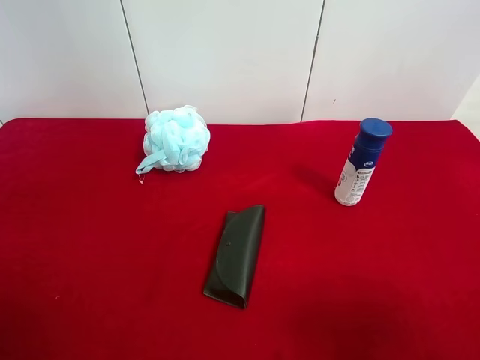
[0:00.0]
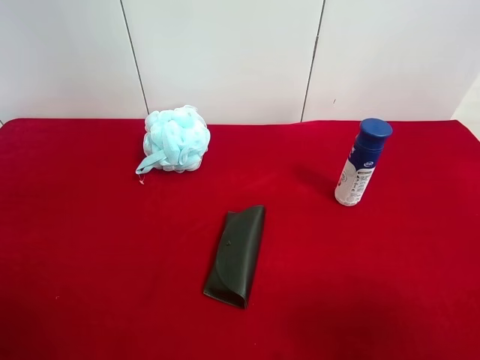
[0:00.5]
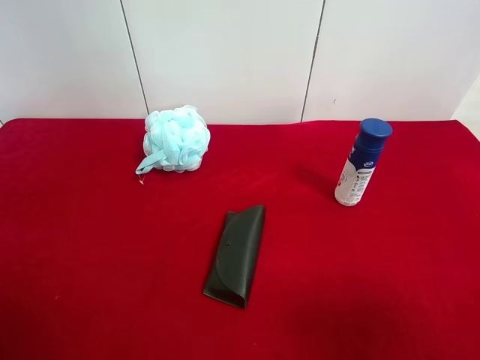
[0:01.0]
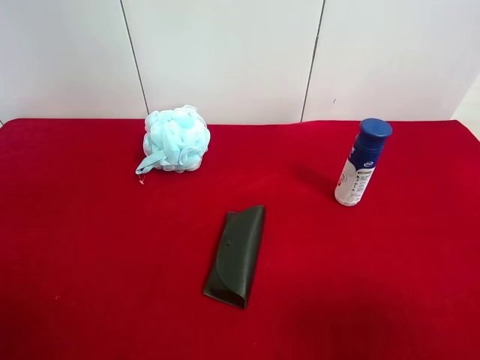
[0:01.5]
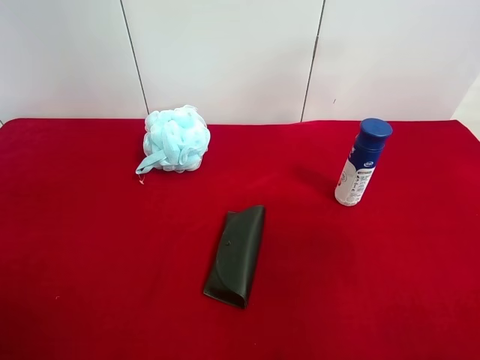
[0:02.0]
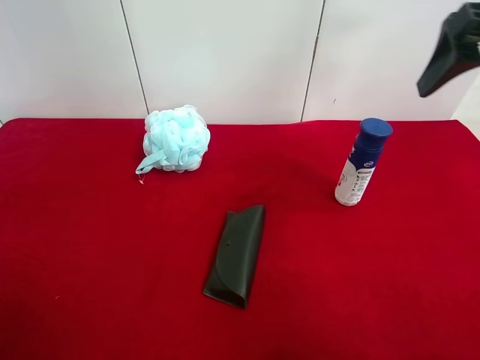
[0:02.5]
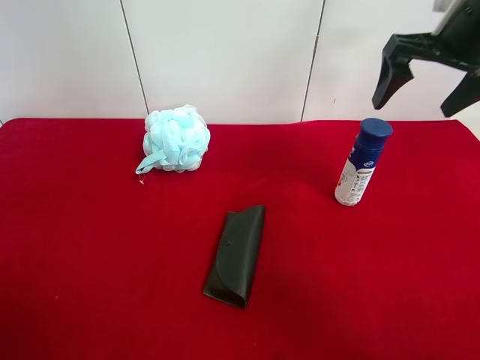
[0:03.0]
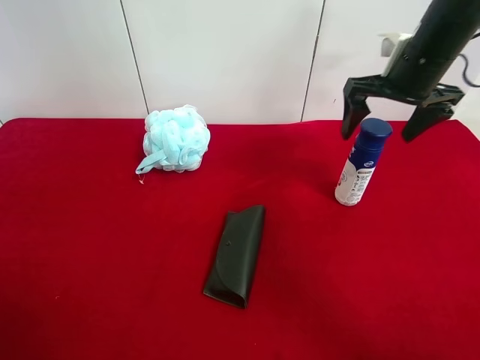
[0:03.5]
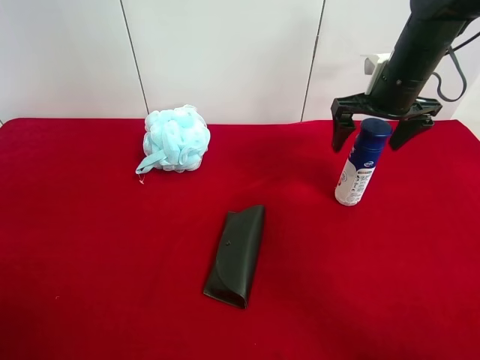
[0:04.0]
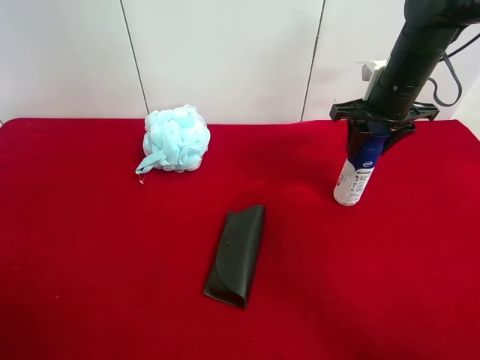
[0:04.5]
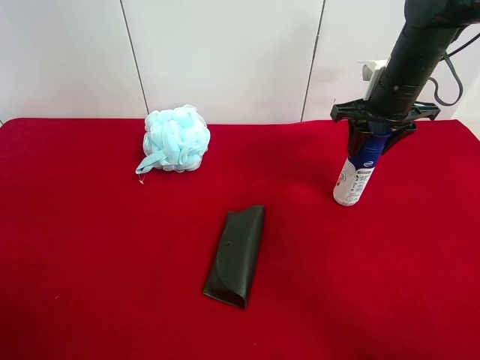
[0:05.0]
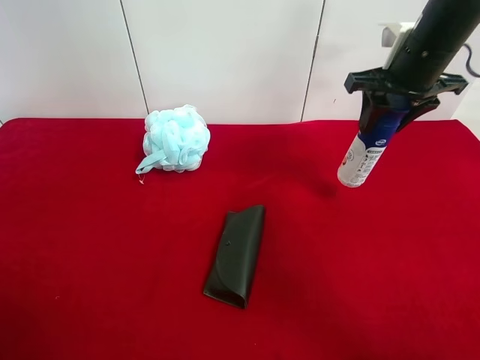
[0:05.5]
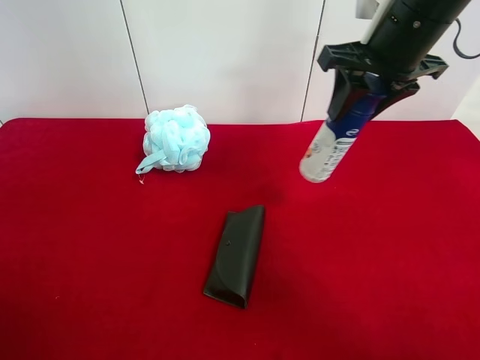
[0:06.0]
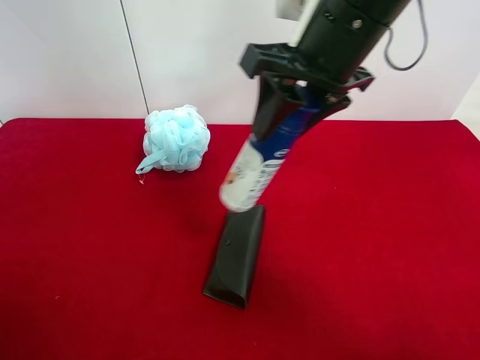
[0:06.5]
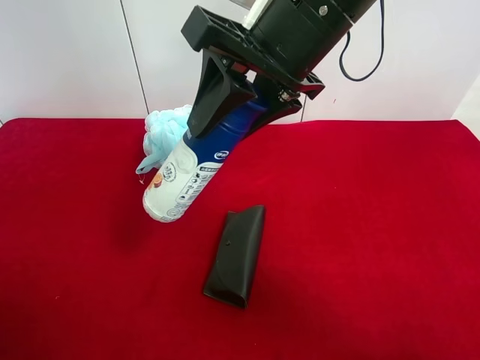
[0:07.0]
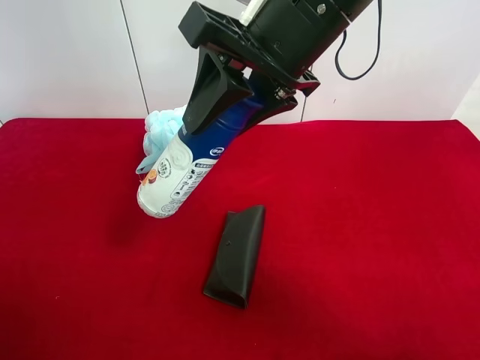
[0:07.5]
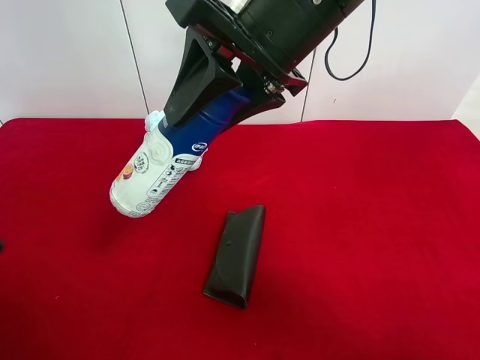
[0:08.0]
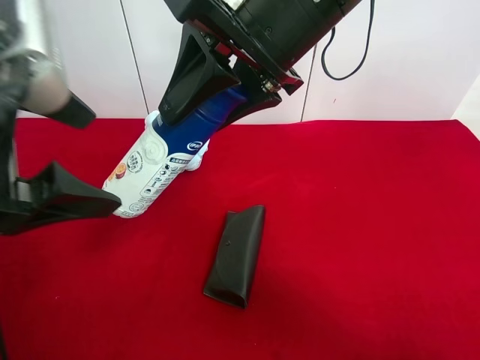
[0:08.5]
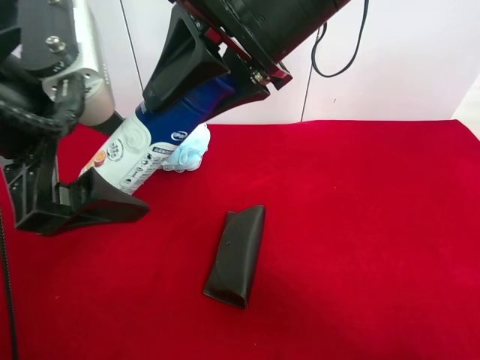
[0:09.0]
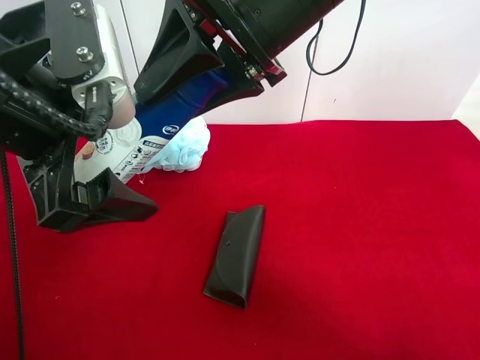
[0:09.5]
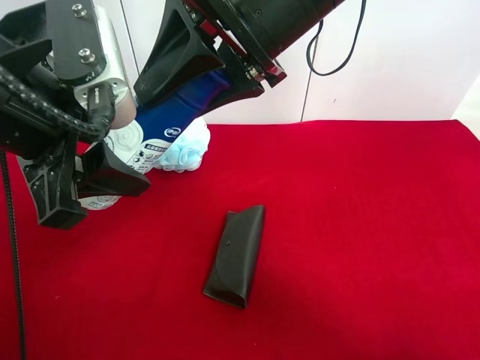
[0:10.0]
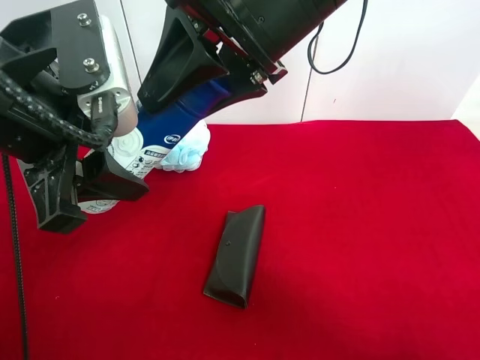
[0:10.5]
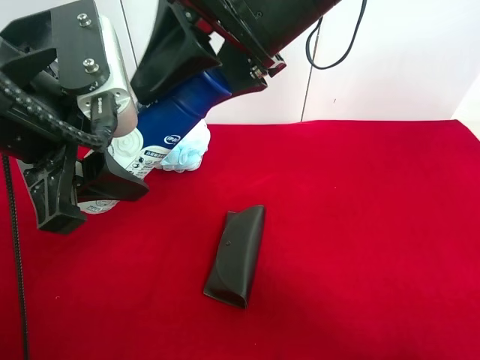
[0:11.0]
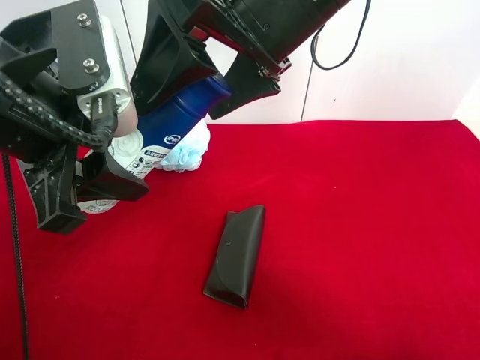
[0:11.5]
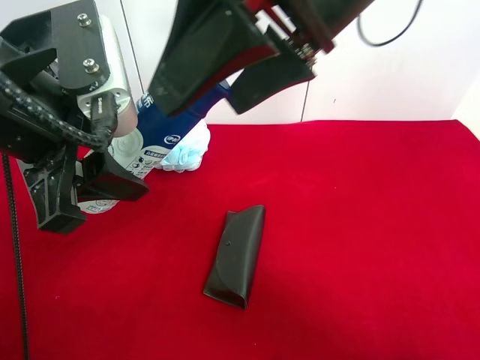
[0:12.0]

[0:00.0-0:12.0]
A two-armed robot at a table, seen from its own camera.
Task of the whole recording: use the right gripper to pick up the item and transfer it from the right gripper to the left gripper.
Step, 0:00.0 to 0:04.5: Use the right gripper to grab the yogurt on the right side of the table.
0:02.0 to 0:04.0: The right gripper goes some 30 cm forward and downward.
0:04.0 to 0:06.0: The right gripper travels upward, backward and to the left by approximately 15 cm, and closes up.
0:06.0 to 0:08.0: The right gripper is displaced to the left and backward by roughly 15 cm. The left gripper moves forward, to the right and upward, about 15 cm.
0:08.0 to 0:10.0: The left gripper moves to the right and forward, roughly 10 cm, and closes up.
0:10.0 to 0:12.0: The right gripper changes place by about 5 cm, and opens up.

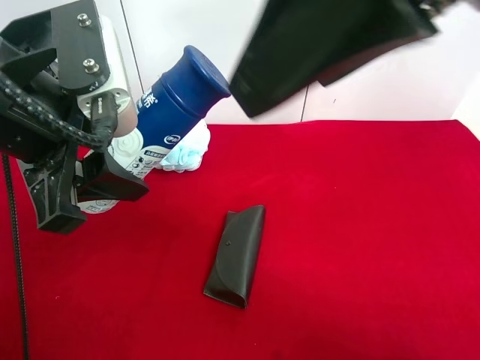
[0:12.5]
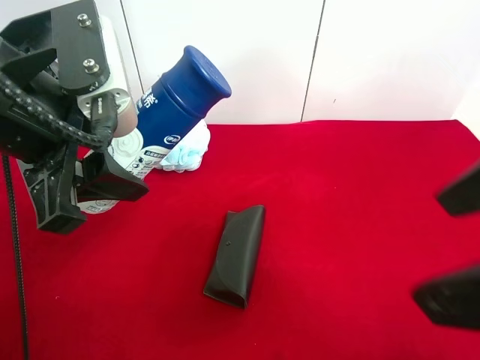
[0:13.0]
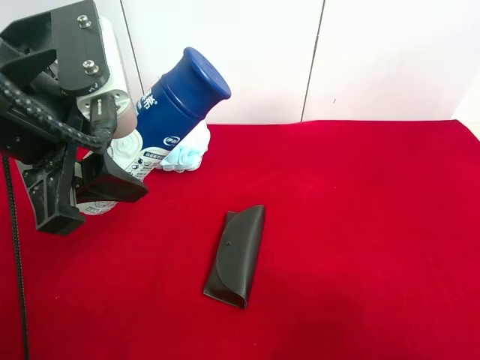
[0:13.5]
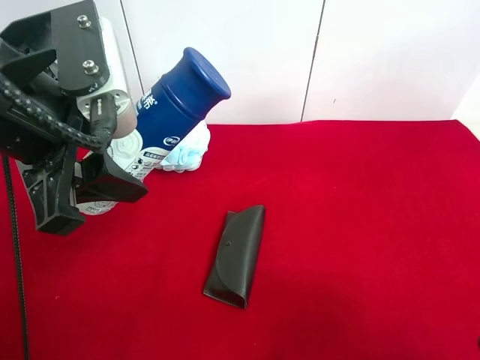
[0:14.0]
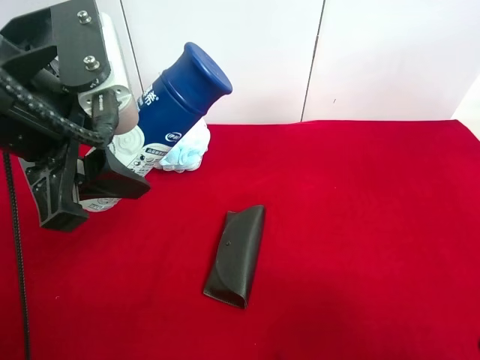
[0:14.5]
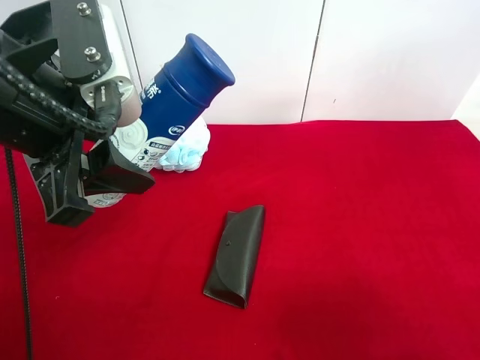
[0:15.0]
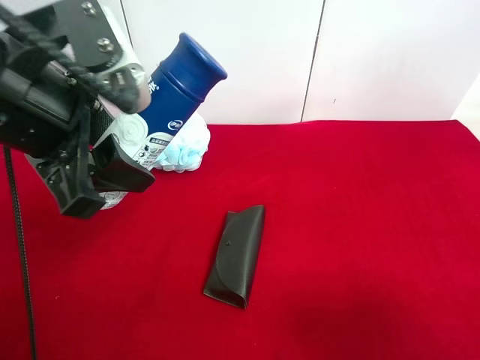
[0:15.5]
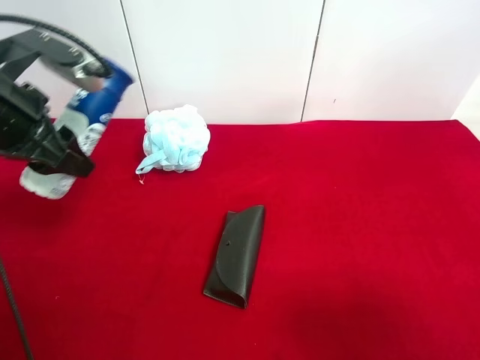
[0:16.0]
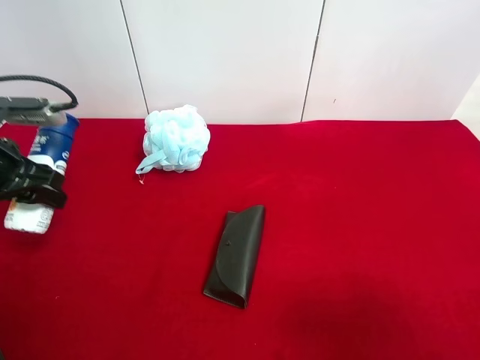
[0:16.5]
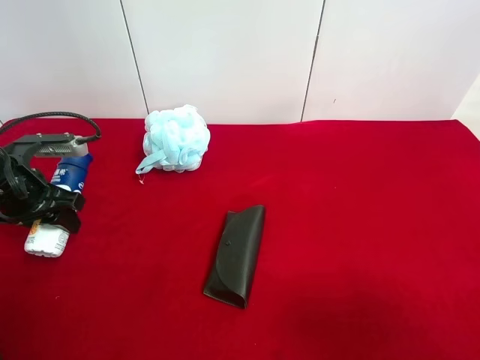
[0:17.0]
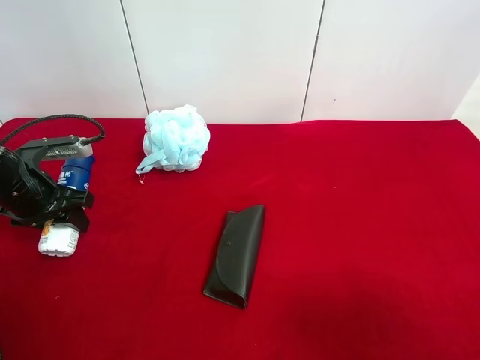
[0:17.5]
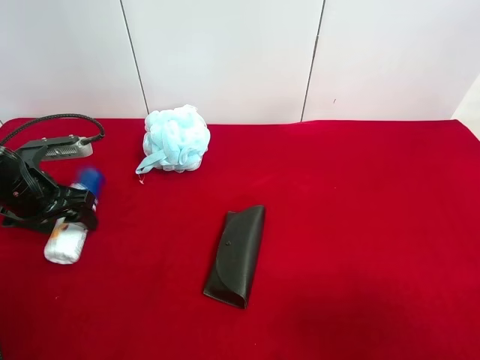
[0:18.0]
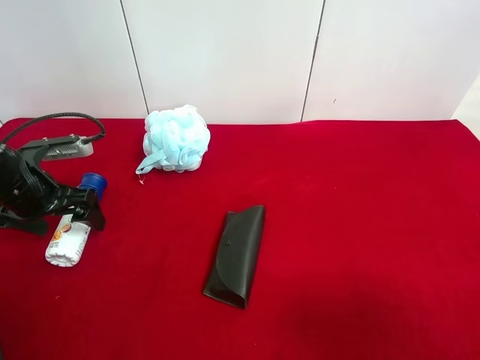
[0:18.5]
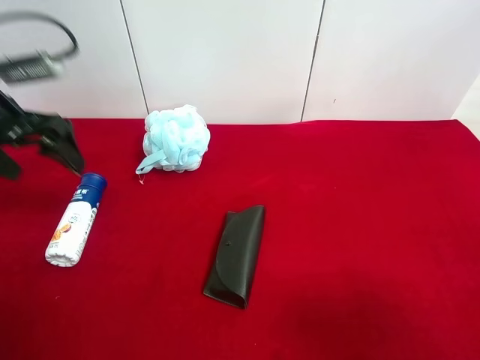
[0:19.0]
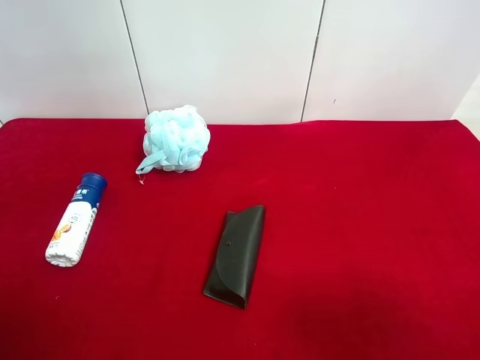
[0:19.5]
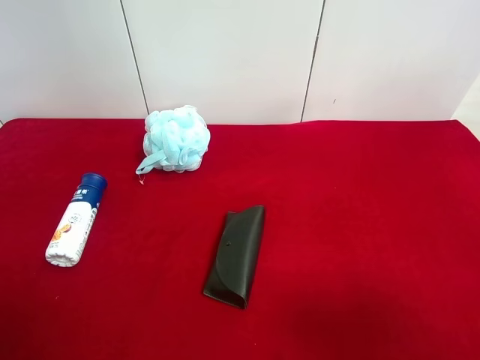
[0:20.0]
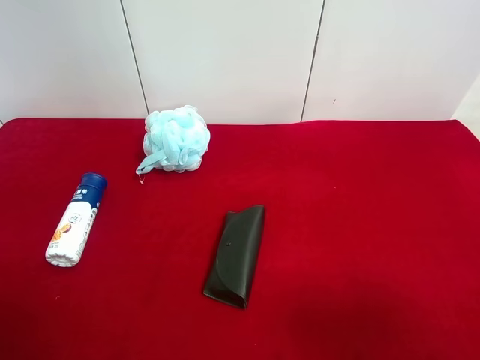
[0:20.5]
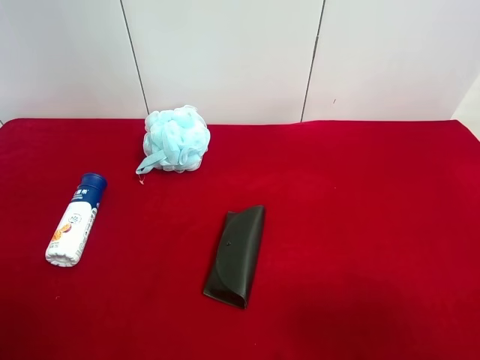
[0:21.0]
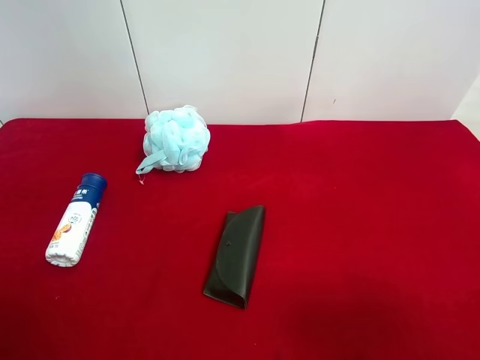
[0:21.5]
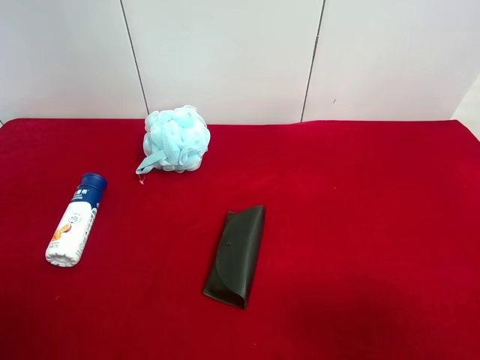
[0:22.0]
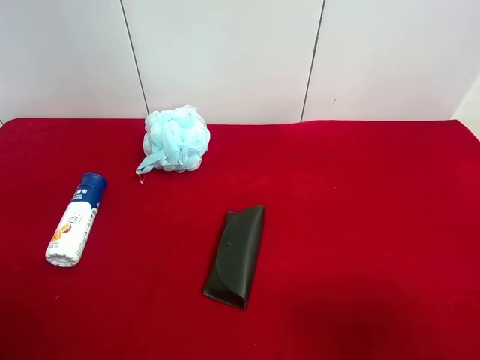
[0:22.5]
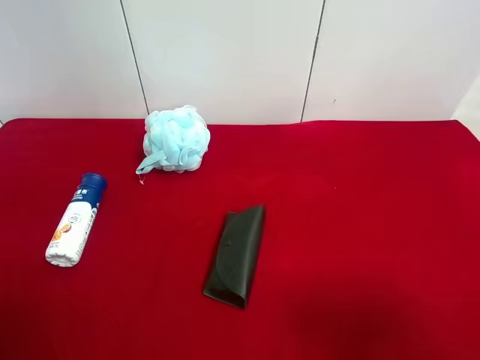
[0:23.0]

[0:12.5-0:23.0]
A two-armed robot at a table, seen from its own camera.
Task of the whole recording: use the right gripper to pick up the item and transfer it from the right gripper to the left gripper.
Step, 0:12.5 to 0:19.0: The left gripper places yogurt on the left side of the table.
0:12.5 to 0:14.5: The right gripper moves to the right, downward and backward, roughly 25 cm.
0:14.5 to 0:16.5: The left gripper goes roughly 20 cm to the left, downward and forward.
0:16.5 to 0:19.0: The left gripper is displaced upward by roughly 5 cm, and opens its fingers.
0:19.0 to 0:21.0: The left gripper travels backward by roughly 30 cm.

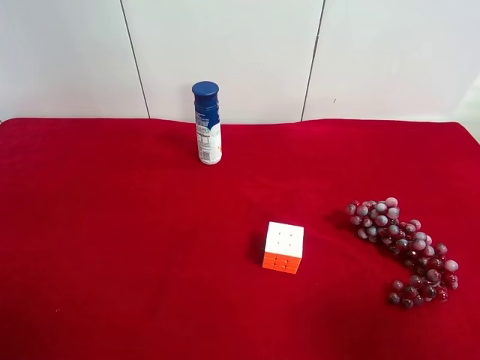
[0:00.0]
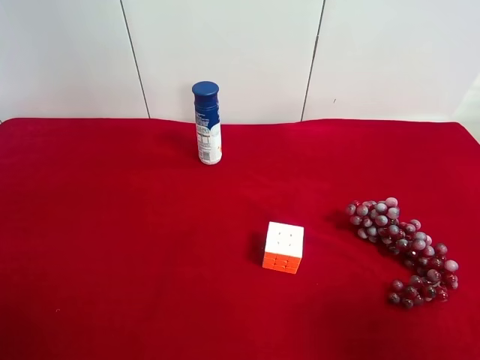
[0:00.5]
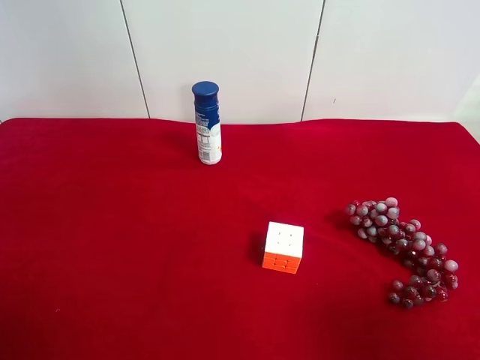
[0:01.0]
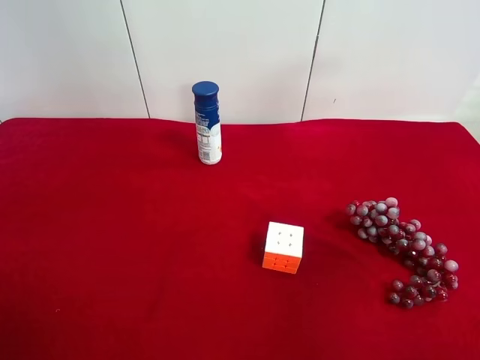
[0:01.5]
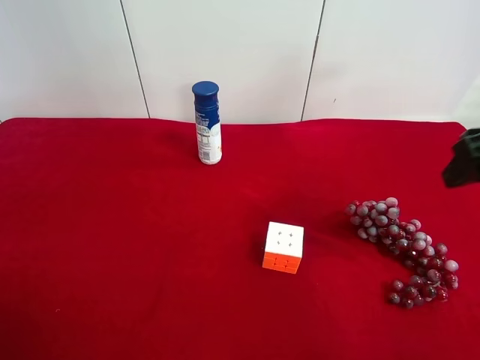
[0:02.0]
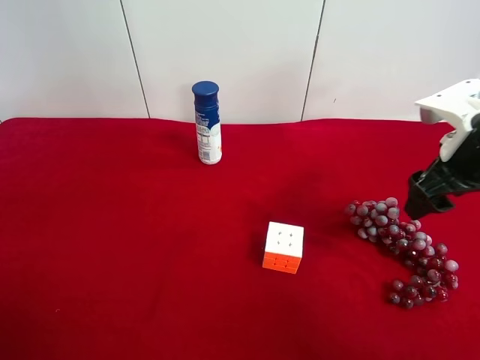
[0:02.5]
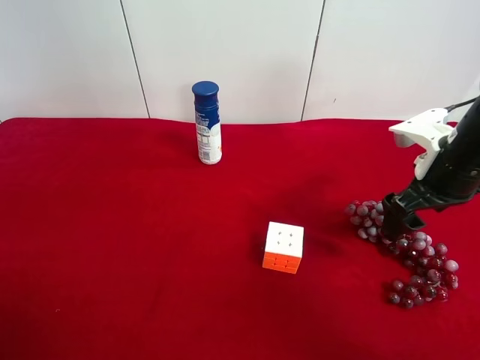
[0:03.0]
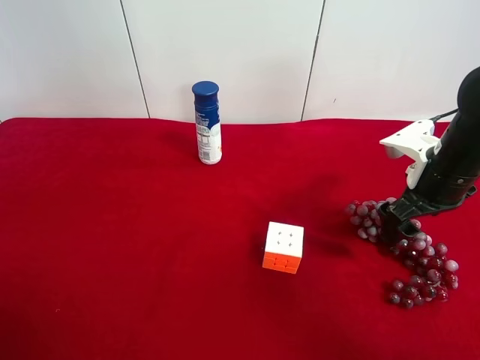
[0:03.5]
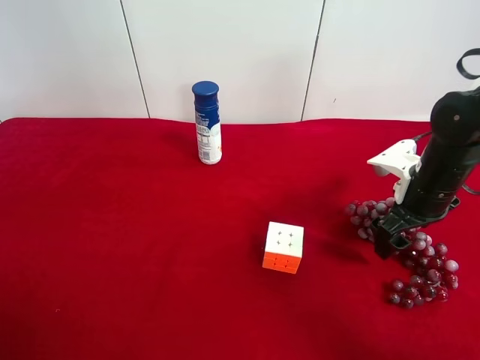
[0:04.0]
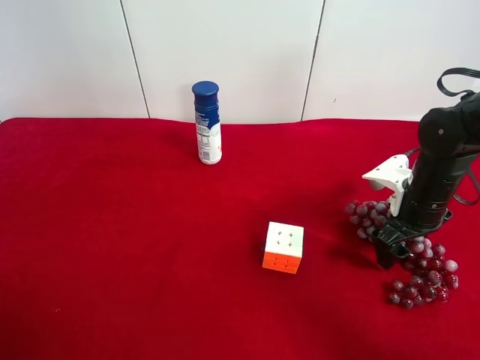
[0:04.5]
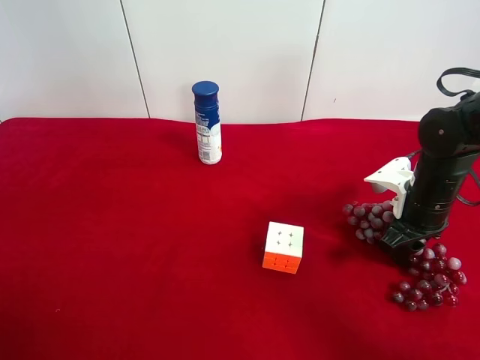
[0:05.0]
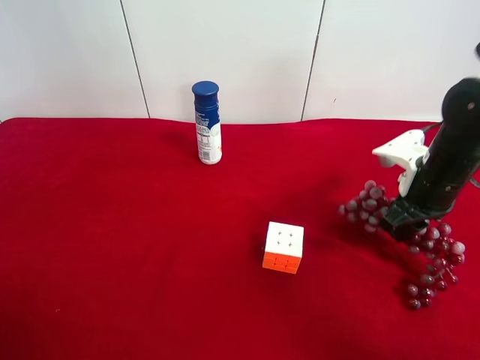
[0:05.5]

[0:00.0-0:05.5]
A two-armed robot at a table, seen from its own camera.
Task of the whole recording: use the right gripper to pick up the item and transfer it from the right gripper to the left gripper.
0:00.0 to 0:02.0: The right gripper is displaced forward by about 20 cm.
0:02.0 to 0:03.5: The right gripper shifts about 15 cm downward and forward, and opens up.
0:03.5 to 0:05.5: The right gripper closes up.
